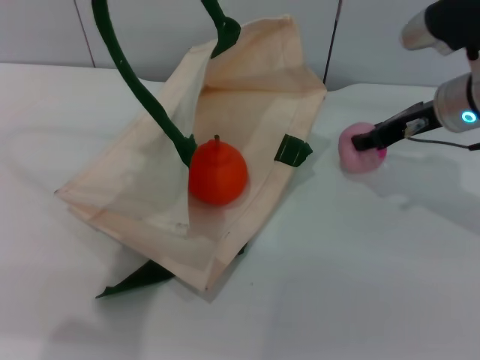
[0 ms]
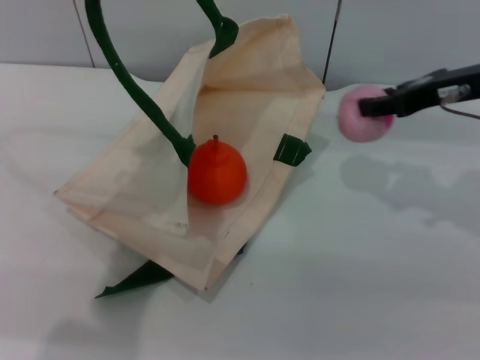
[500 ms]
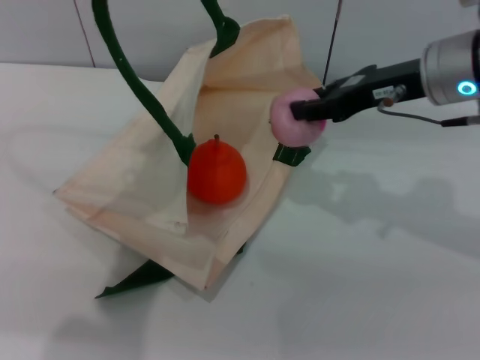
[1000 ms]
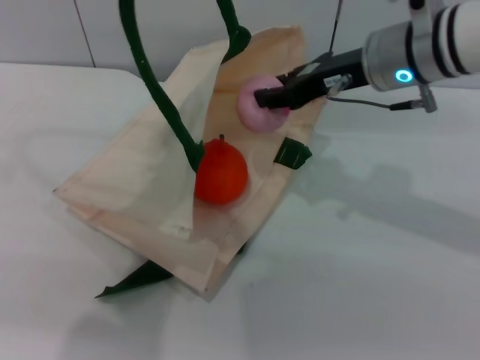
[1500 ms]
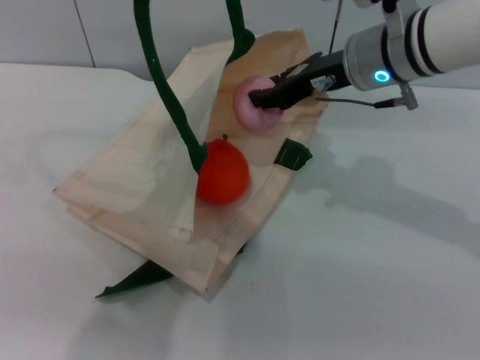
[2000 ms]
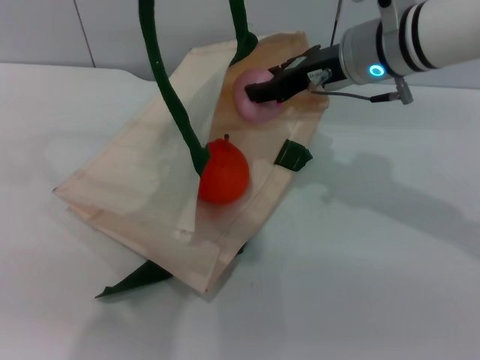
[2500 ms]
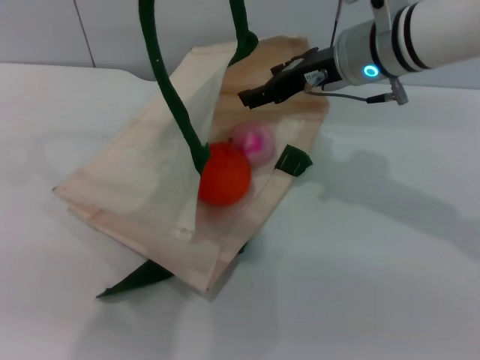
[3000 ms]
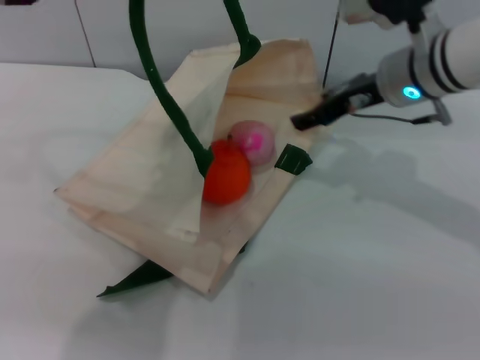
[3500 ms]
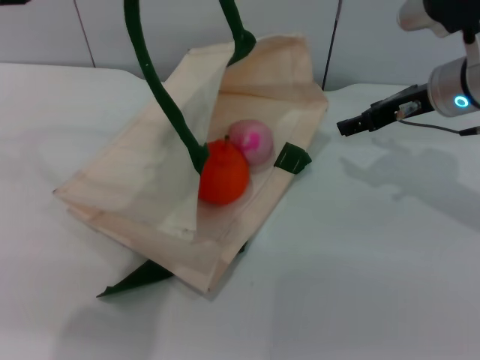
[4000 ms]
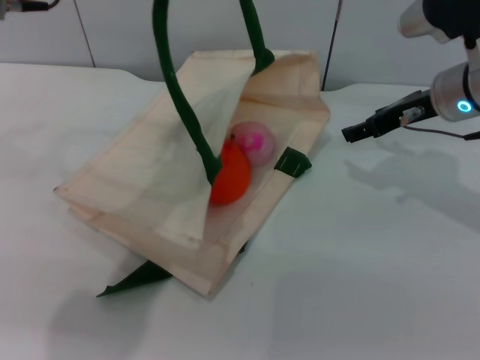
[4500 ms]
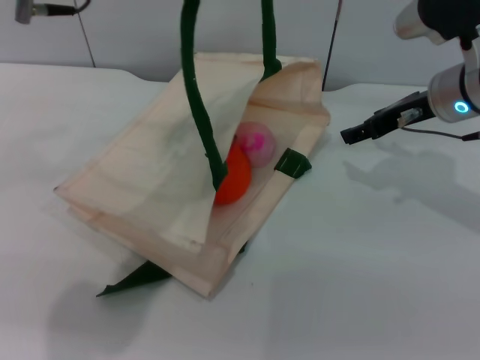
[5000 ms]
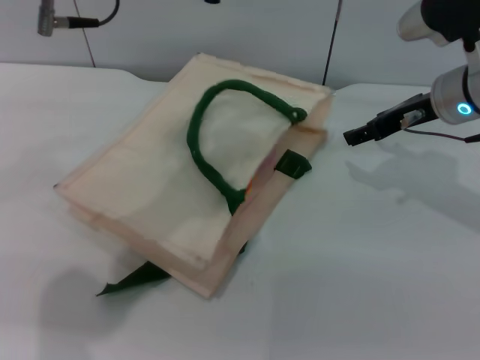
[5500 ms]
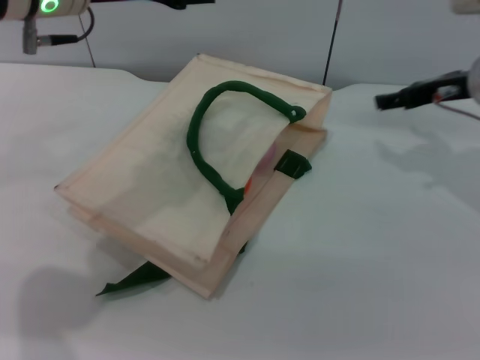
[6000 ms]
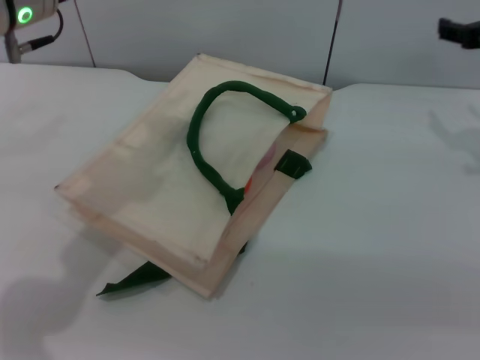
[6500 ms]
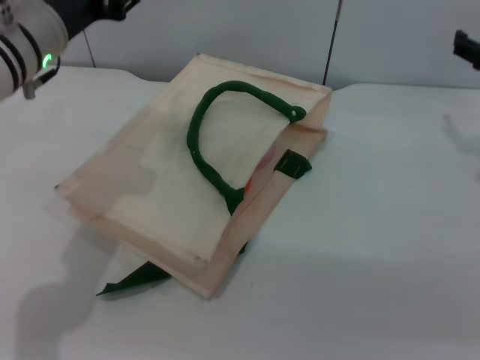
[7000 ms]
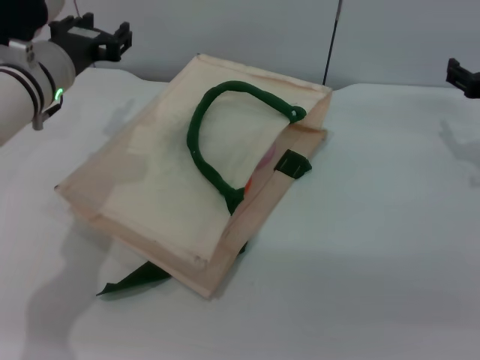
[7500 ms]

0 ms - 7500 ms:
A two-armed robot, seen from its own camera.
Task of the whole recording: pick up the orange and peach from the table and place it in the white handbag.
Step, 500 ms - 3000 ms: Place the peach into the woven bag with the right gripper.
Step, 3500 ms - 5500 ms: Lower the woven bag with the left gripper to close it.
0 ms - 2000 ms: The right gripper is displaced to the left by about 10 cm.
2000 ms - 4000 ms: The right gripper moves to the right, about 10 cm, and opens.
4000 ms - 5500 ms: The left gripper opens.
5500 ms - 7500 ms: The right gripper heads to the right and downward, covering about 10 cm; the left gripper shifts some 15 cm downward and to the left.
